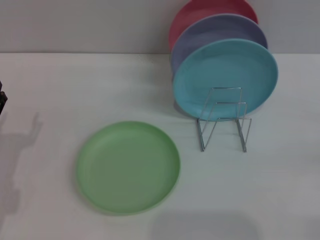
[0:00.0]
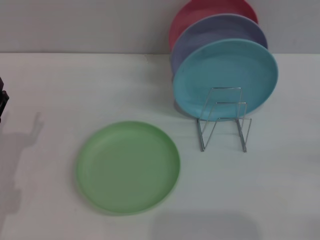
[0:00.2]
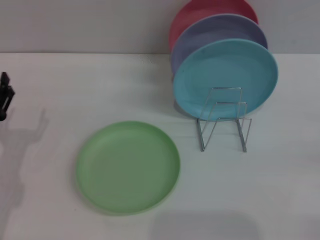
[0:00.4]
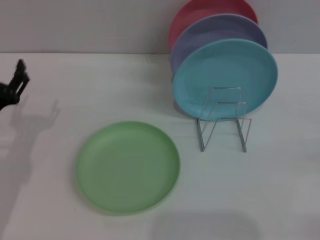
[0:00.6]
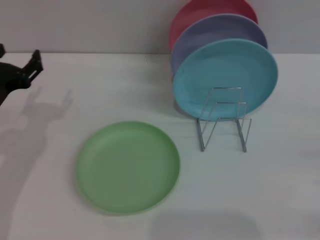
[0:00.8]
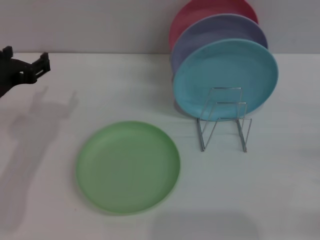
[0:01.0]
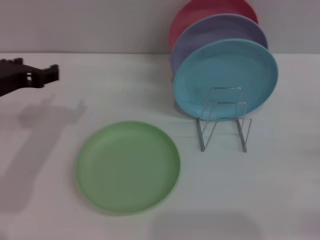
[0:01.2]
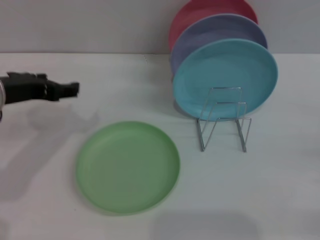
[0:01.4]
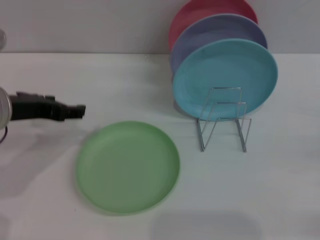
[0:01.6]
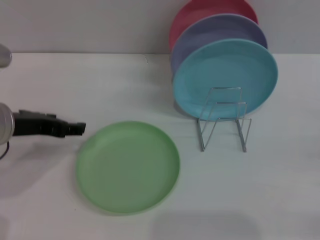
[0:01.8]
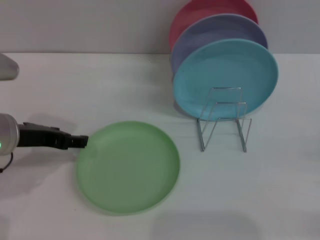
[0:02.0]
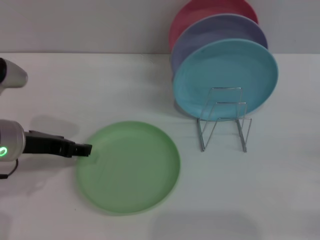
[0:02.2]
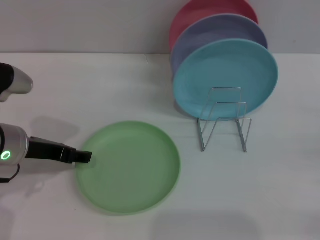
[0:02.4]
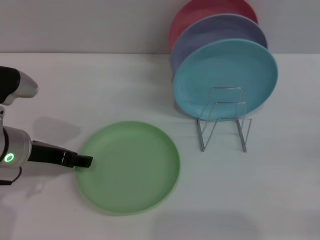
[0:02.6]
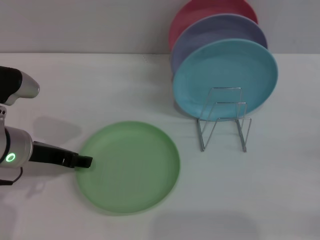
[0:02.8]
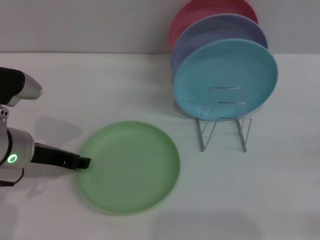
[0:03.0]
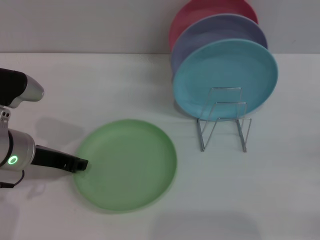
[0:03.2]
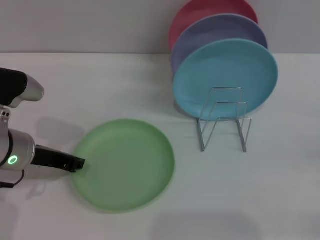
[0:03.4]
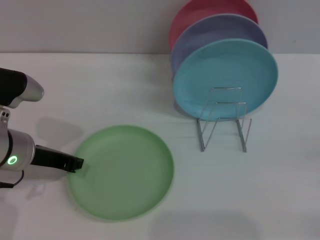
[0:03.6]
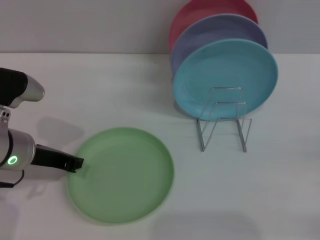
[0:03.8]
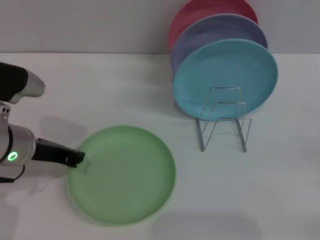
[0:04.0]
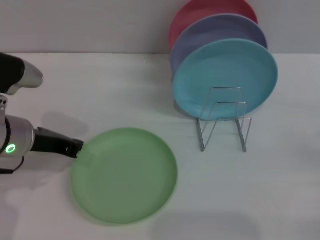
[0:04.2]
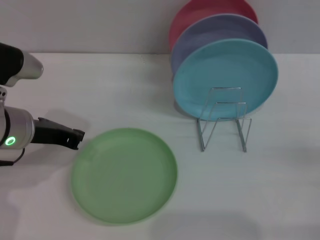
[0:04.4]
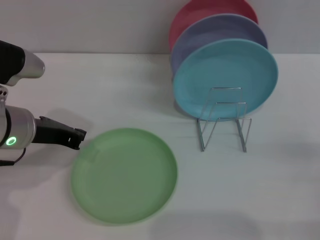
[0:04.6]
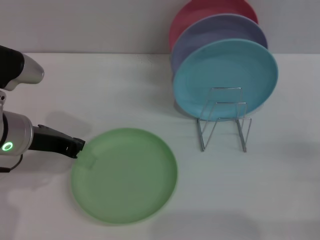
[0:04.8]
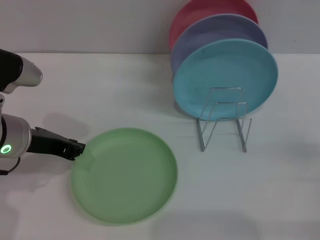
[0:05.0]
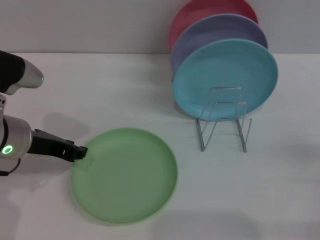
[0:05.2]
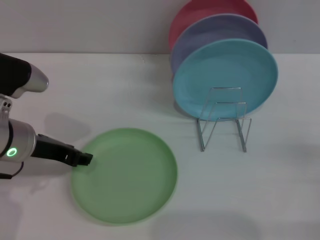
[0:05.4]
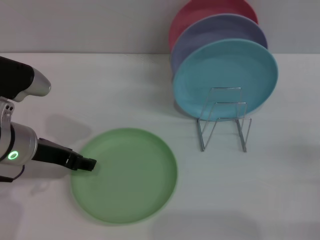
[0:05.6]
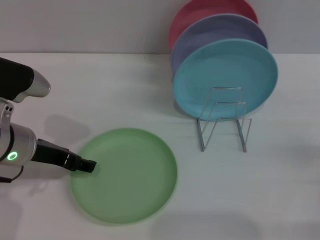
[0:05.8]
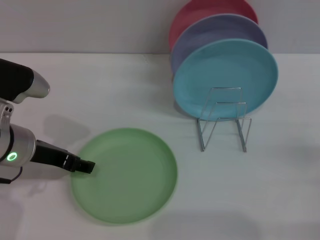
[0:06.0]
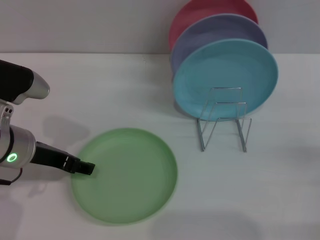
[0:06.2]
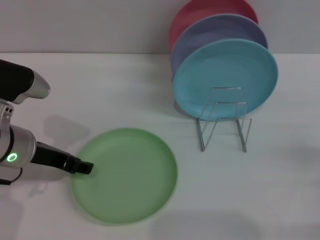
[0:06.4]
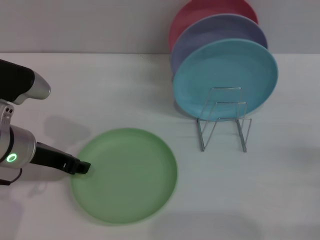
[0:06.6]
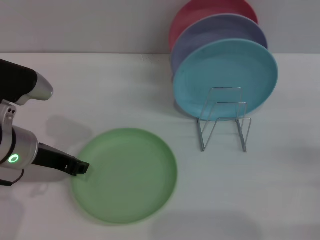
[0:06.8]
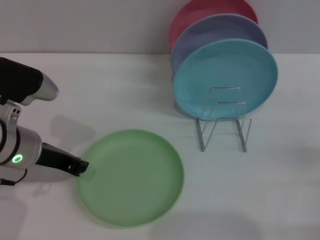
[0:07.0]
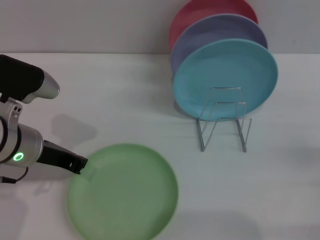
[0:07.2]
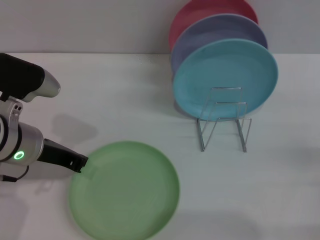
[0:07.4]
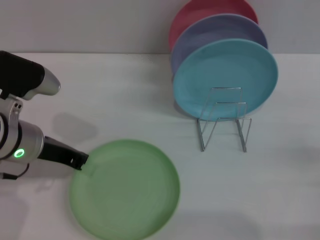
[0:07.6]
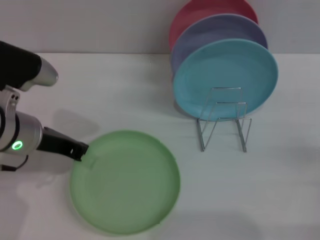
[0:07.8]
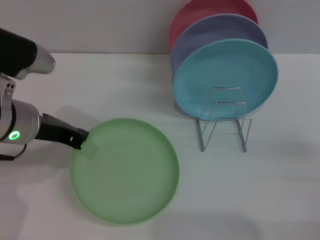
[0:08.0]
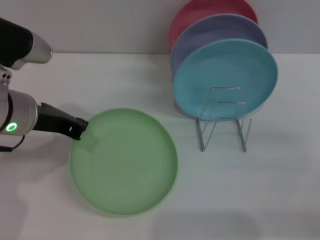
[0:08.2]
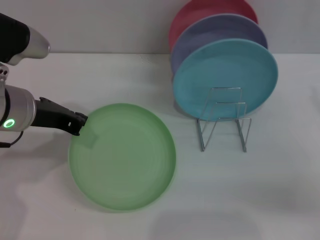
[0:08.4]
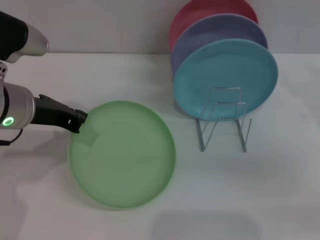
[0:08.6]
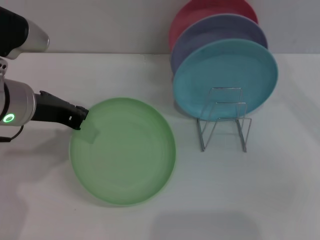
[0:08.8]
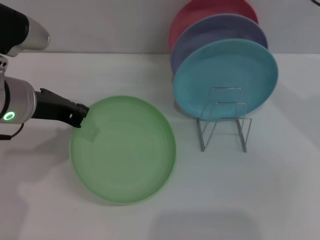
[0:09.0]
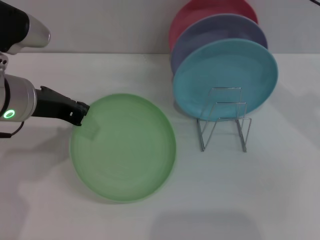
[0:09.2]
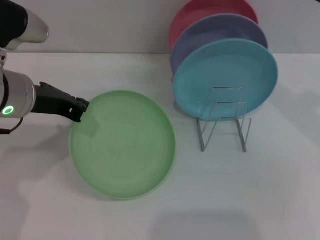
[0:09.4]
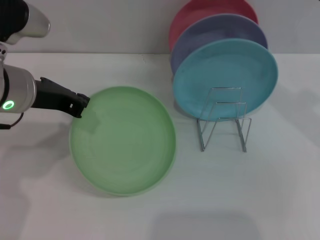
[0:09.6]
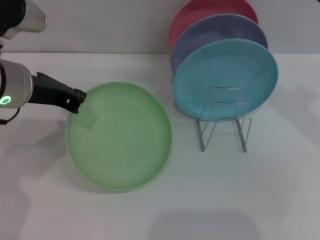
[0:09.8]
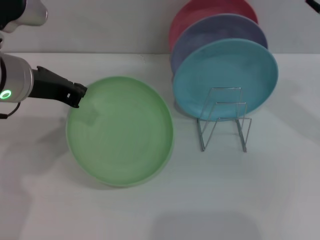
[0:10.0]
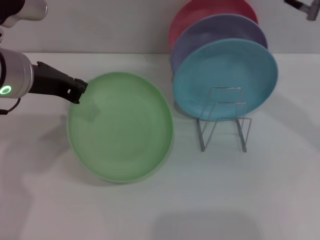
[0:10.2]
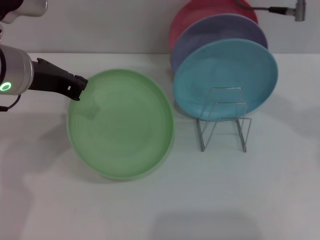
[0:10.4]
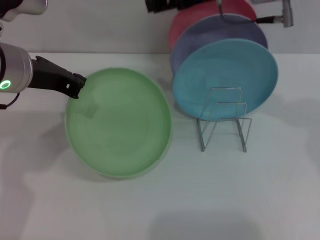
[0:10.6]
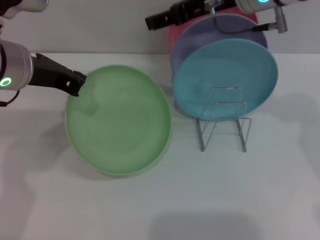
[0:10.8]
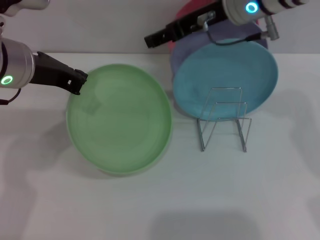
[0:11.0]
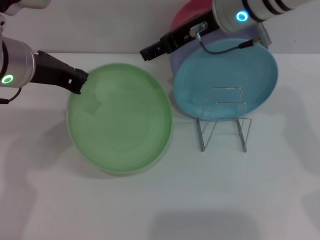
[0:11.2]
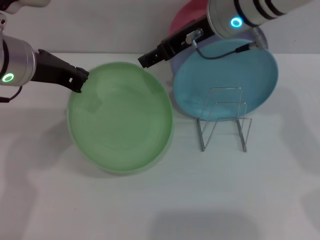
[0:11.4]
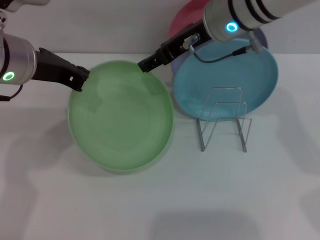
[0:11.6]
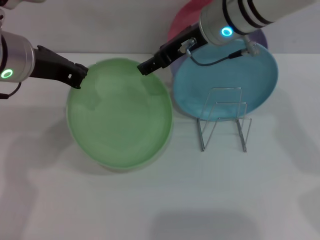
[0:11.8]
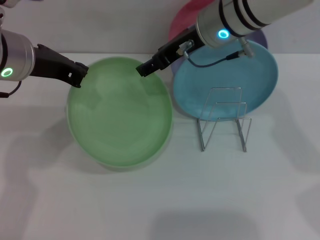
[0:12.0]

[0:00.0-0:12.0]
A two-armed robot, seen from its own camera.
Task of the whole recording: Grip the plate with one hand, pass it to the other, then set it on the shelf.
Step, 0:00.0 to 0:08.2: Pick up the plate with the left gripper.
0:00.0 to 0:01.6: The left gripper is displaced upward, forward and to the right by about 15 cm.
0:01.6 to 0:03.0: The left gripper shifts some 5 cm downward.
0:03.0 to 0:04.4: The left gripper closes its fingers.
0:04.4 to 0:06.0: The left gripper opens its fingers.
0:06.0 to 0:07.6: The left gripper closes up.
0:07.6 to 0:09.0: The right gripper is displaced upward, forward and to the left by some 25 cm, while the left gripper shifts about 5 cm upward.
0:09.0 to 0:10.4: The right gripper shifts roughly 10 cm to the left and upward.
0:10.4 to 0:12.0: The right gripper travels downward and to the left by roughly 10 cm.

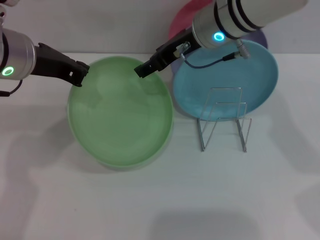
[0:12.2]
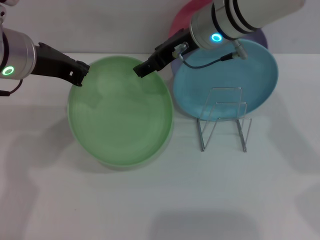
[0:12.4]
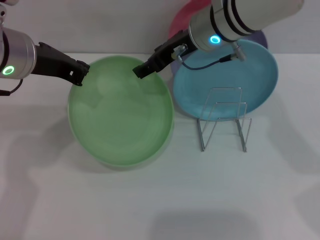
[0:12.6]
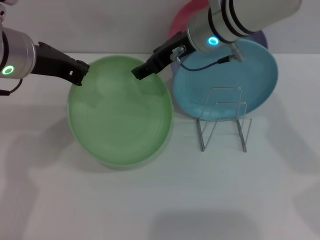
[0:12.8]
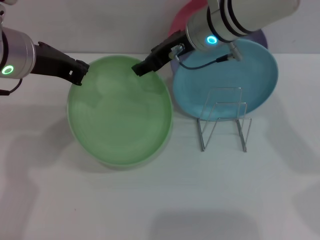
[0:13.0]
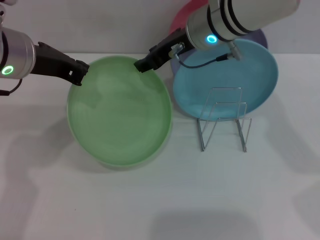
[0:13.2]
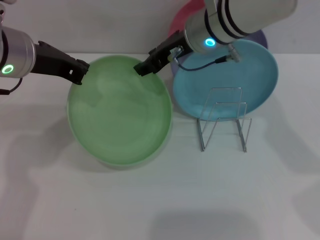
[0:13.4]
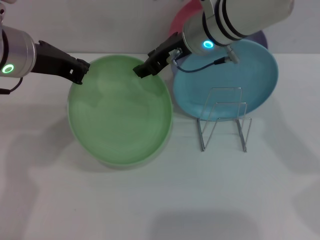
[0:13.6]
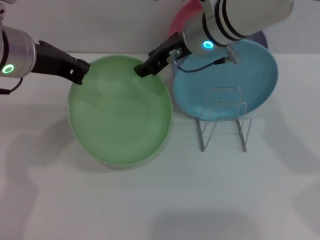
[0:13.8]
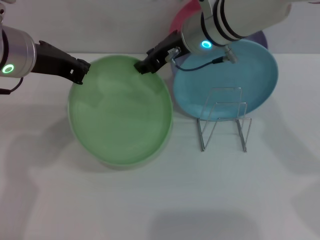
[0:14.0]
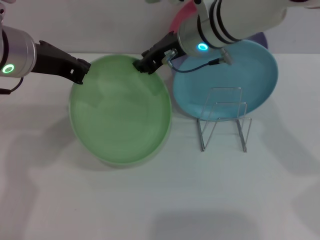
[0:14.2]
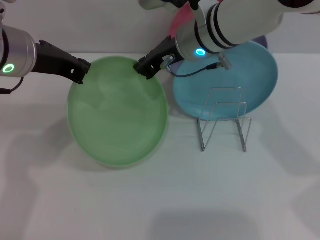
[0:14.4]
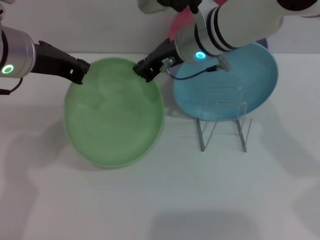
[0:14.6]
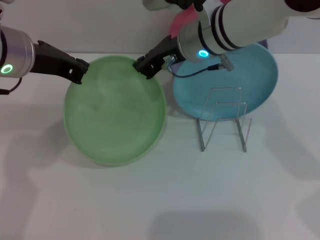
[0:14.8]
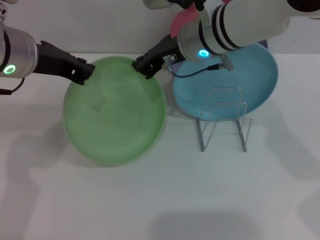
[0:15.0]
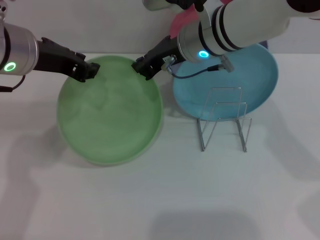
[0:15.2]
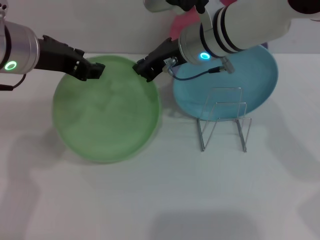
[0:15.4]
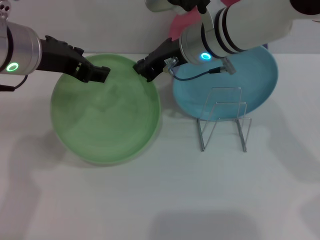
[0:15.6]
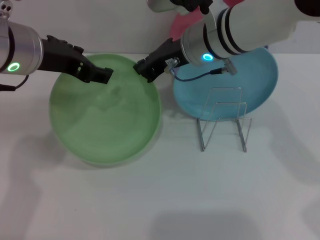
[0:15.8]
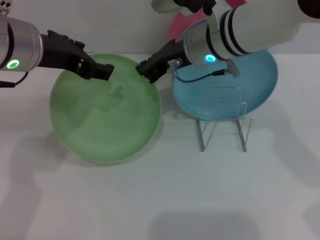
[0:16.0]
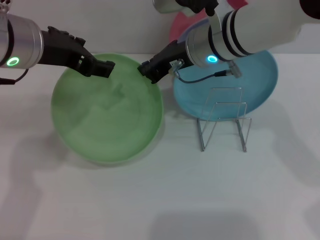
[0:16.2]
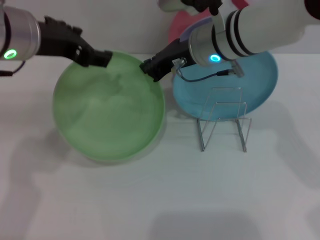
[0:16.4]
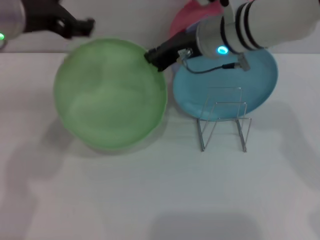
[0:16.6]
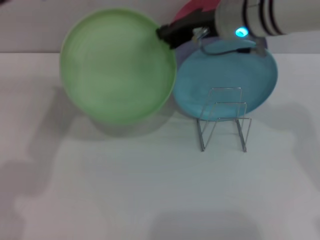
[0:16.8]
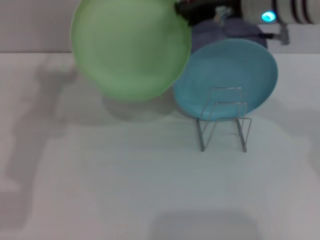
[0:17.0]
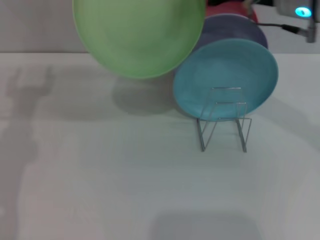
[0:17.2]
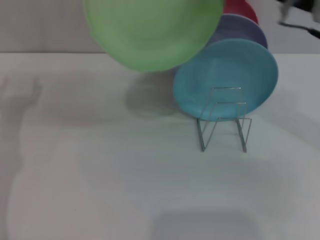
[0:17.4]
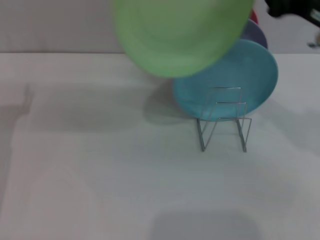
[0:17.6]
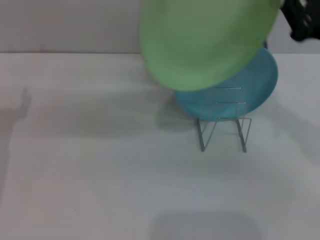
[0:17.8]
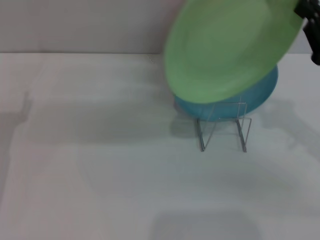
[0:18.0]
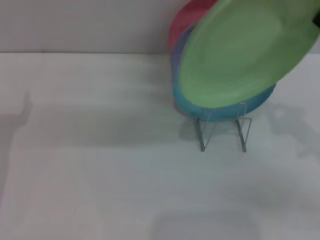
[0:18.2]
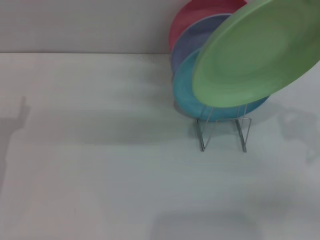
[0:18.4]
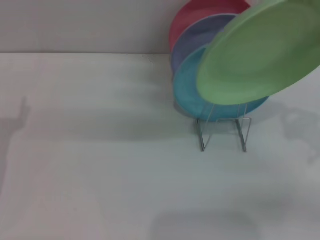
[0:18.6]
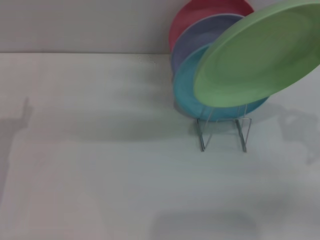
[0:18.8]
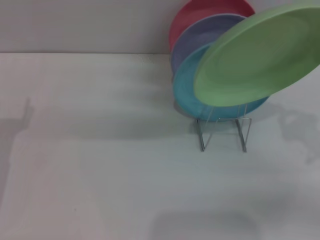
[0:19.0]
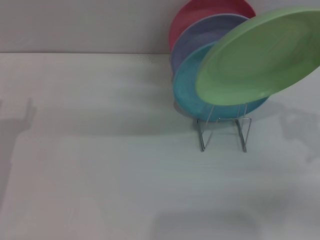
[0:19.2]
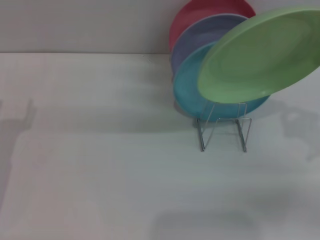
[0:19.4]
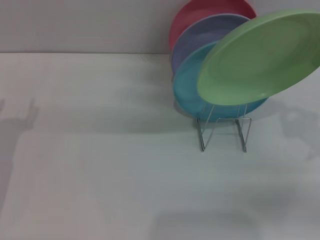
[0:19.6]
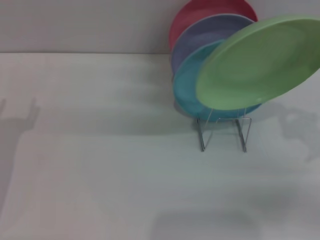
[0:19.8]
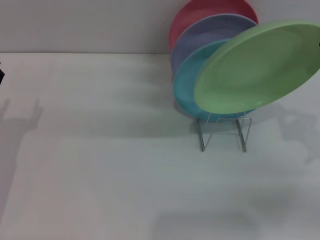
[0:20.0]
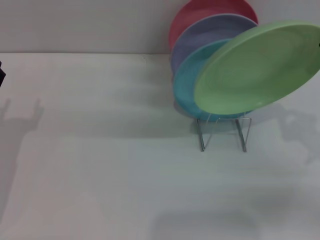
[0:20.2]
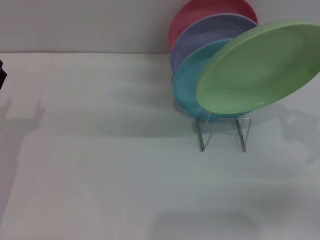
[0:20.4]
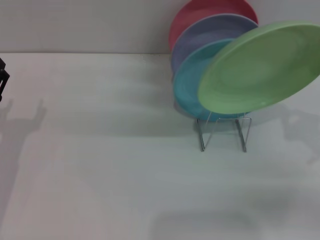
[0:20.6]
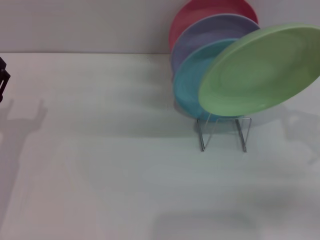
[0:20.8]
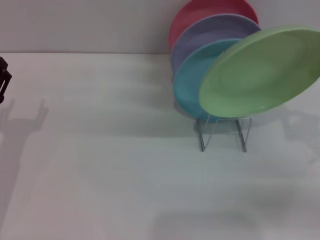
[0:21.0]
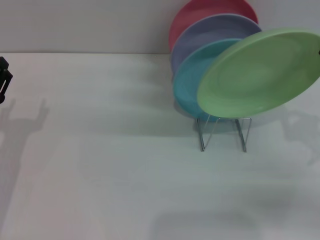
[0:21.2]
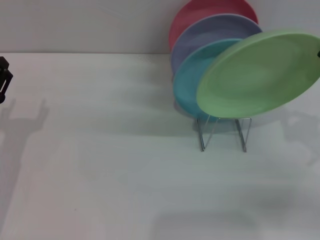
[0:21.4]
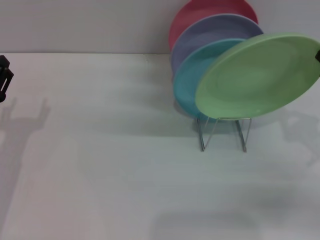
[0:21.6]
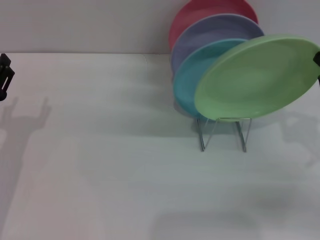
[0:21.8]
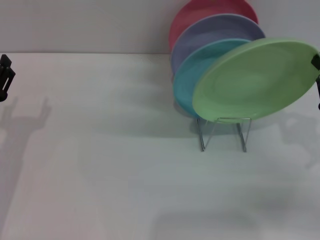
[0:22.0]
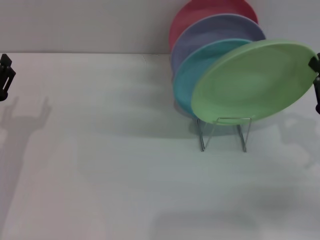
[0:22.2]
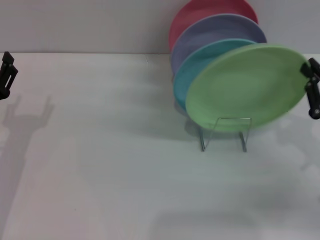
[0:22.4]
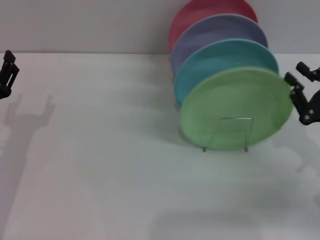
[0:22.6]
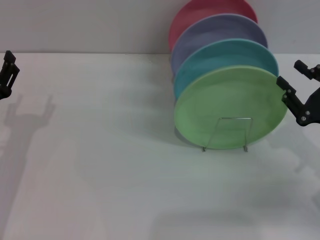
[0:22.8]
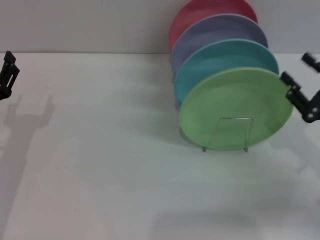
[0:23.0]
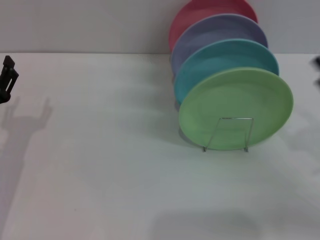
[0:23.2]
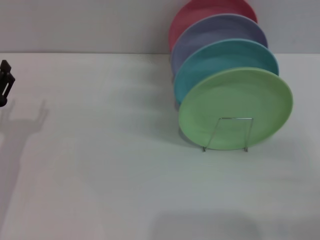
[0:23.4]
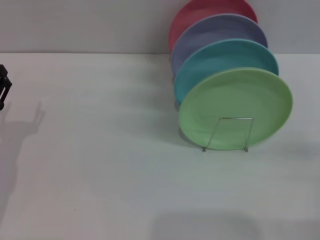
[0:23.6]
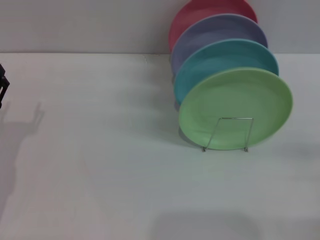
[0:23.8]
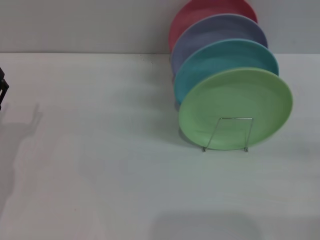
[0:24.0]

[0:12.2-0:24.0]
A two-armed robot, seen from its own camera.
Task of the whole recording: Grip the plate with one hand, pass it to the other, then set it on the shelf.
Step, 0:12.2 to 0:16.8: Pass the plate from the left gripper to the right gripper.
Step, 0:17.0 to 0:22.8: Place the plate on the shelf with the right gripper.
0:12.2 to 0:13.6: The grippers move only a little.
0:13.6 to 0:15.2: The right gripper closes.
0:15.2 to 0:16.6: The left gripper opens up.
0:16.6 to 0:18.2: The right gripper heads to the right and backward, covering roughly 25 cm; the left gripper travels downward and to the left by about 25 cm.
0:19.6 to 0:21.0: Neither gripper changes place.
0:21.0 to 0:22.6: There are only small adjustments of the grippers.
0:22.6 to 0:24.0: The right gripper travels to the right and backward by some 10 cm, and opens.
